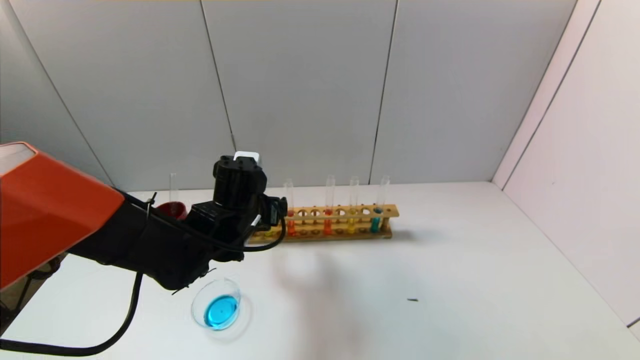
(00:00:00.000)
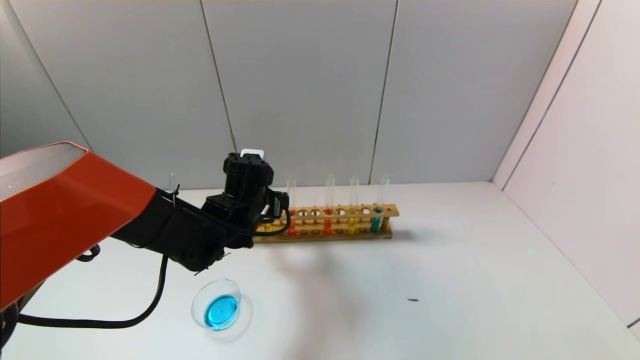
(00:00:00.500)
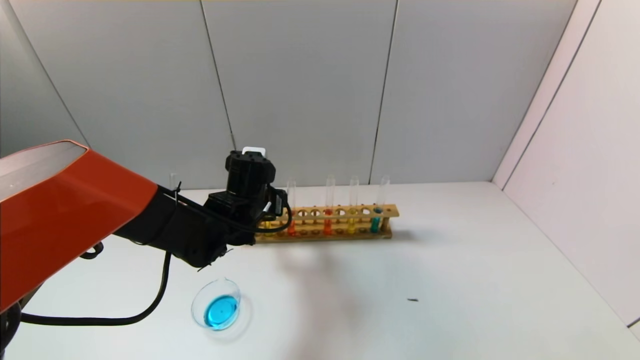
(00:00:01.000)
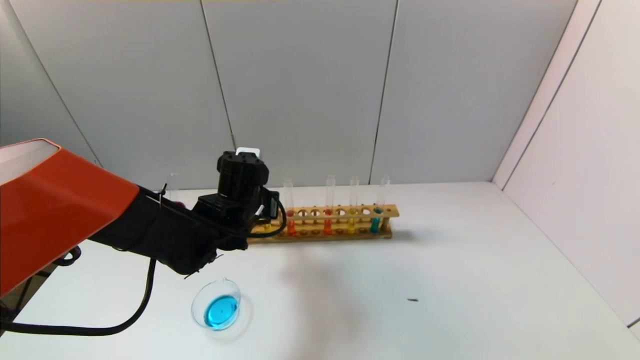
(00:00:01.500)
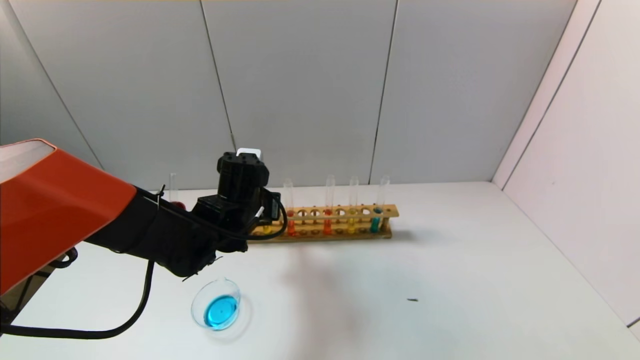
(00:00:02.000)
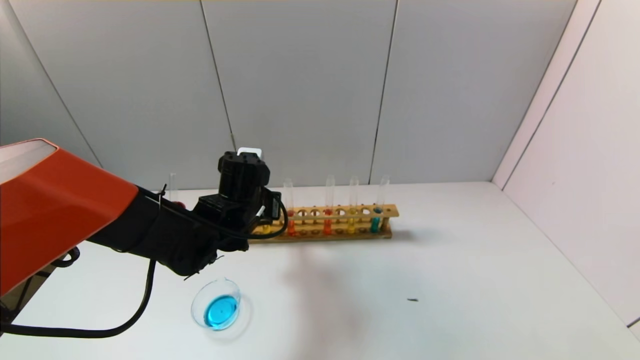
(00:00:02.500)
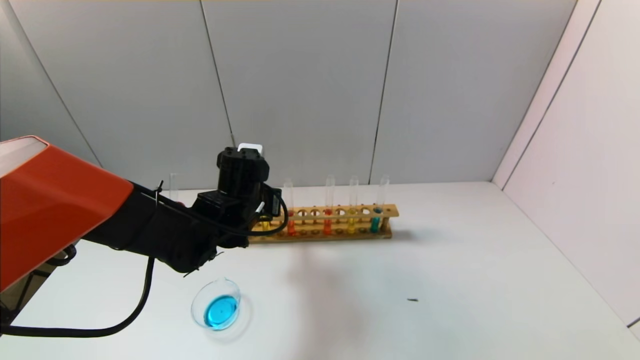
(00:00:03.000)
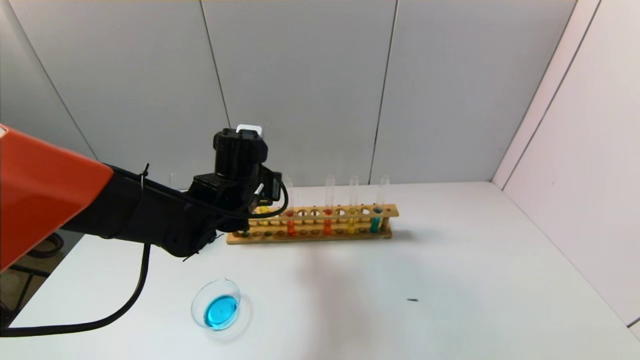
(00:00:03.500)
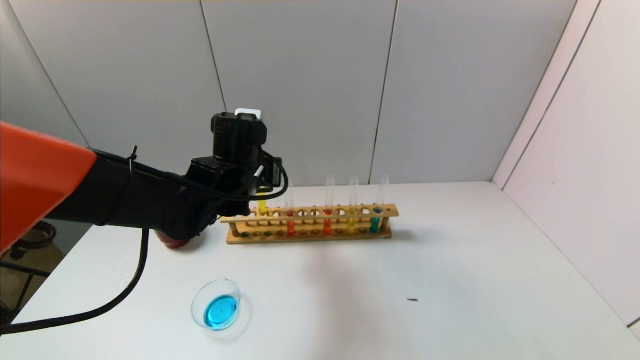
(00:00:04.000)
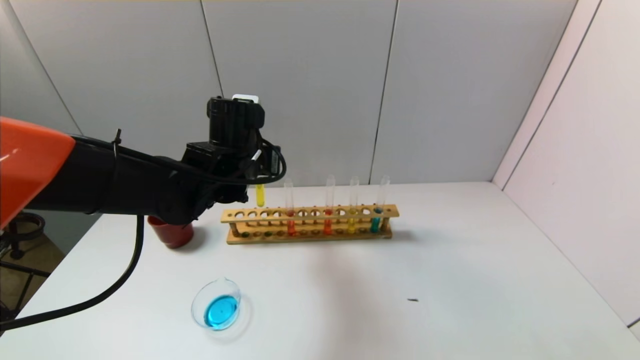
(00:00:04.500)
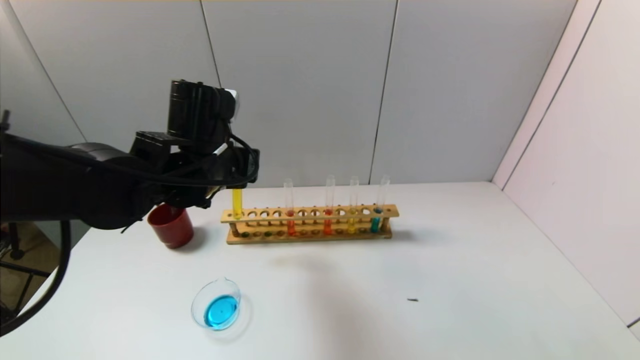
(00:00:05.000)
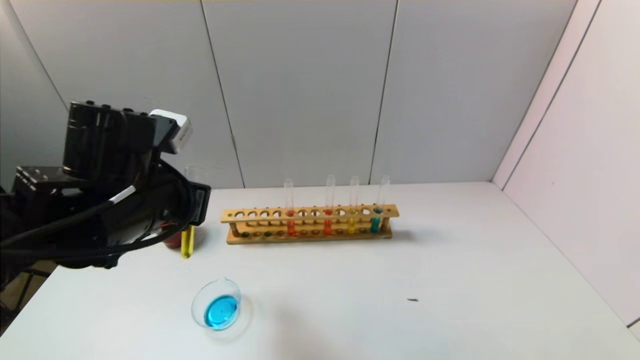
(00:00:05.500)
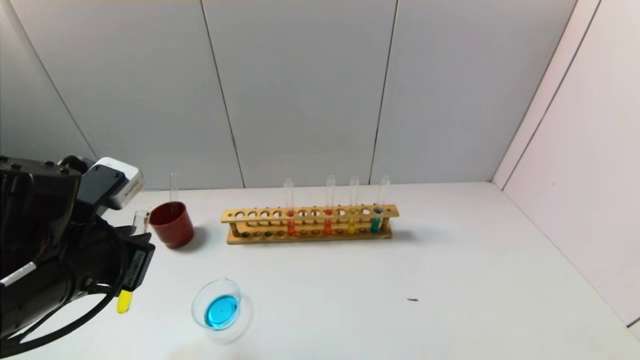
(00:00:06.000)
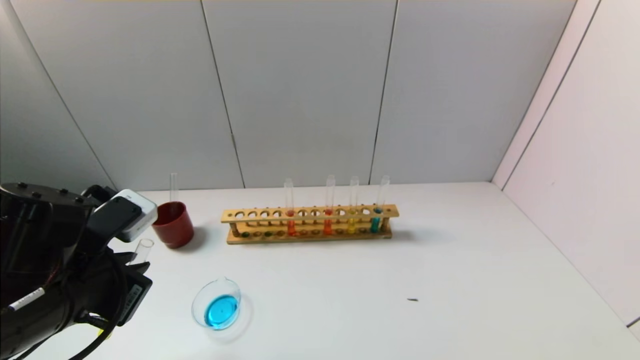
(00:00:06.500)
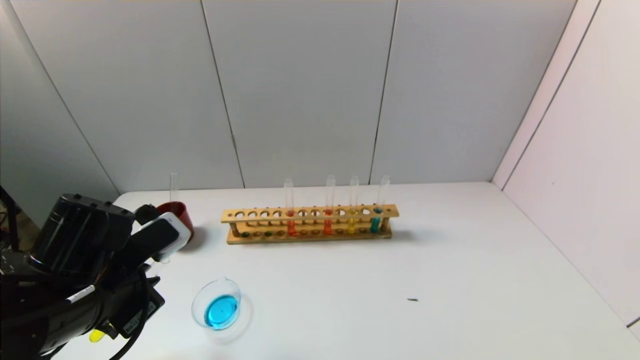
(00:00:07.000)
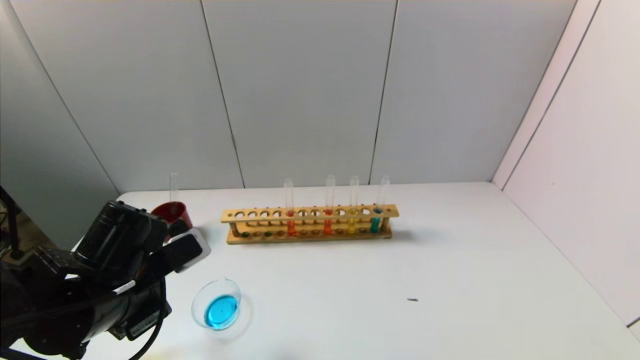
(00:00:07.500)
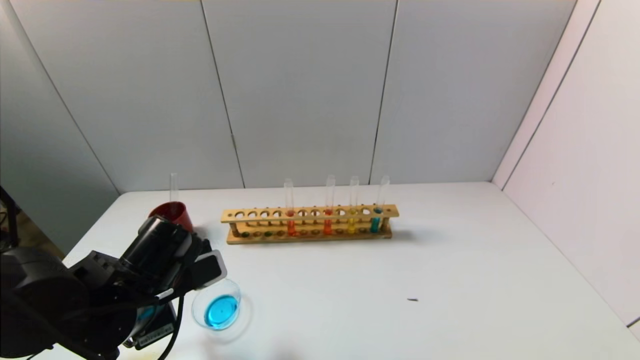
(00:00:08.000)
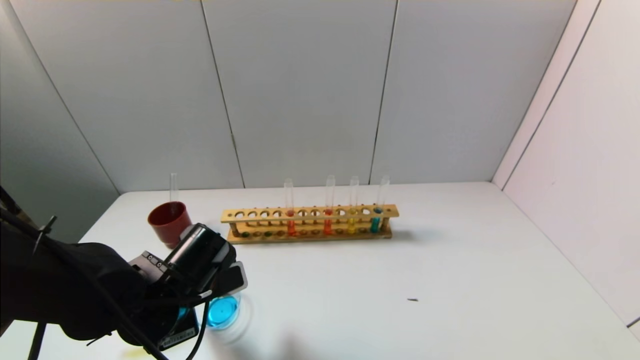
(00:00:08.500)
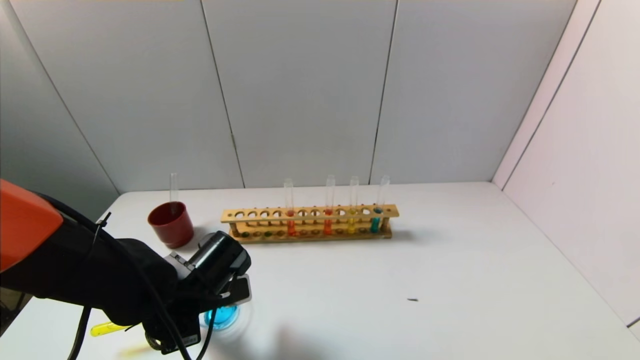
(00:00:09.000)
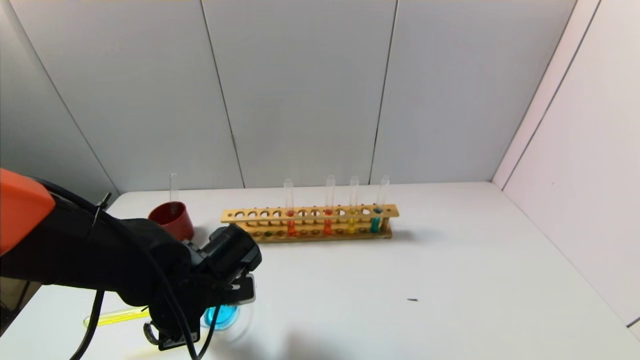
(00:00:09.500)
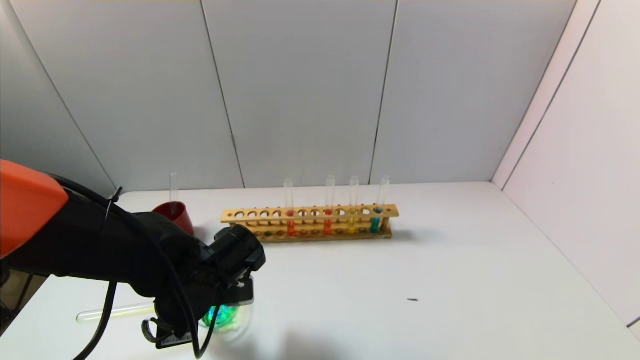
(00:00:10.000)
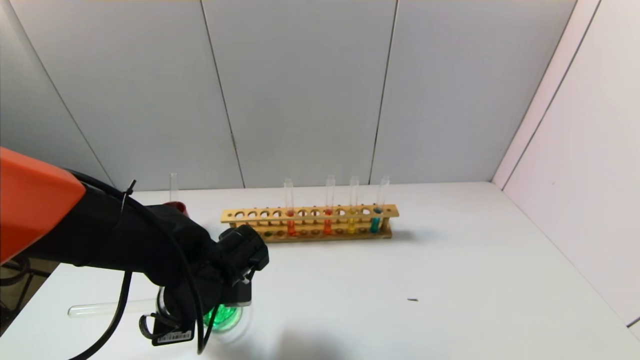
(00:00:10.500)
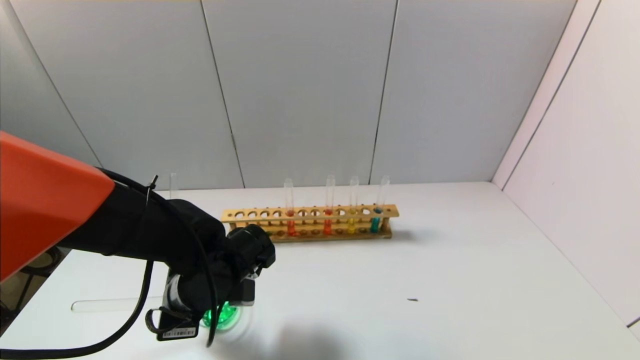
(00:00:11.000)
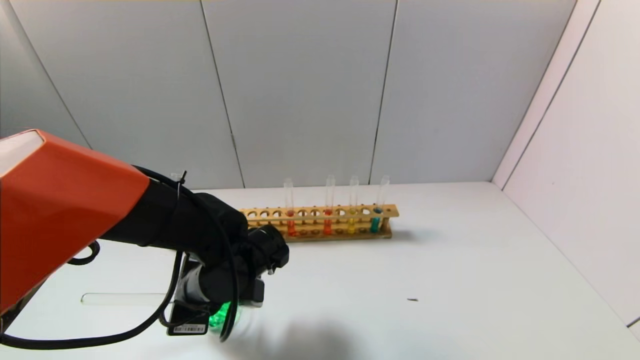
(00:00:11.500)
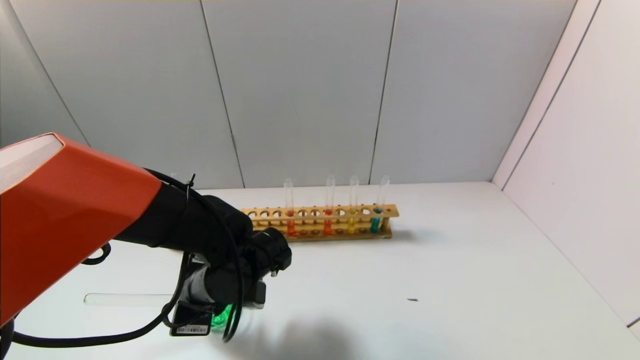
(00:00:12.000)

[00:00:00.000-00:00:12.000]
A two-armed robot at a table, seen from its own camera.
Task of the whole recording: pick up the test tube with yellow pigment and the test tube with blue pigment by grippers and pour them into the beaker.
00:00:00.000 to 00:00:02.000: The left gripper closes.
00:00:02.000 to 00:00:04.000: The left gripper moves upward, roughly 5 cm.
00:00:04.000 to 00:00:06.000: The left gripper heads backward and to the left, covering approximately 20 cm.
00:00:06.000 to 00:00:08.000: The left gripper heads downward, covering roughly 10 cm.
00:00:08.000 to 00:00:10.000: The left gripper changes place by about 5 cm.
00:00:10.000 to 00:00:12.000: The grippers stay close to where they were, moving slightly.

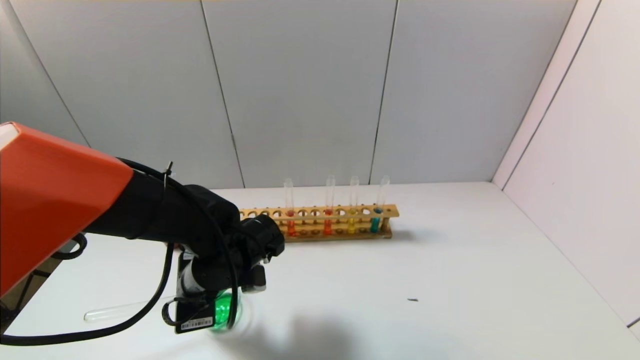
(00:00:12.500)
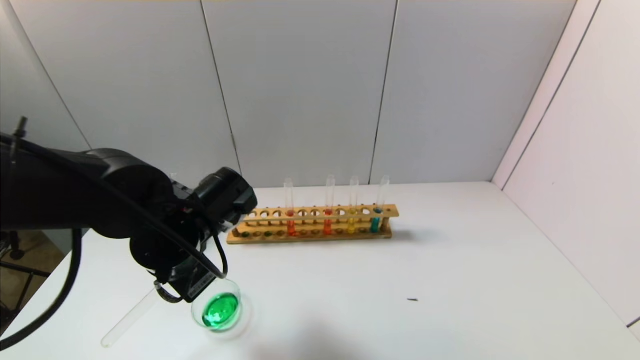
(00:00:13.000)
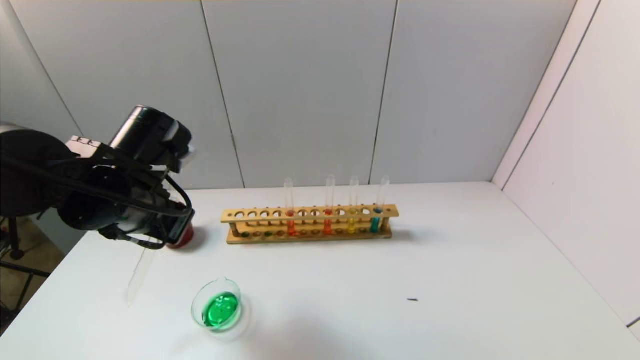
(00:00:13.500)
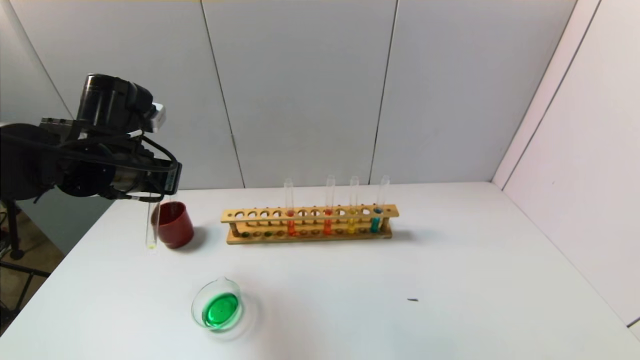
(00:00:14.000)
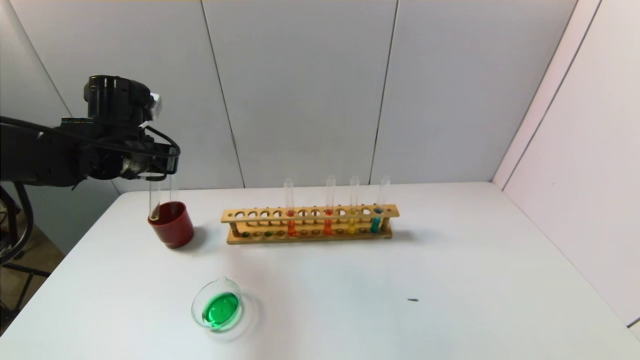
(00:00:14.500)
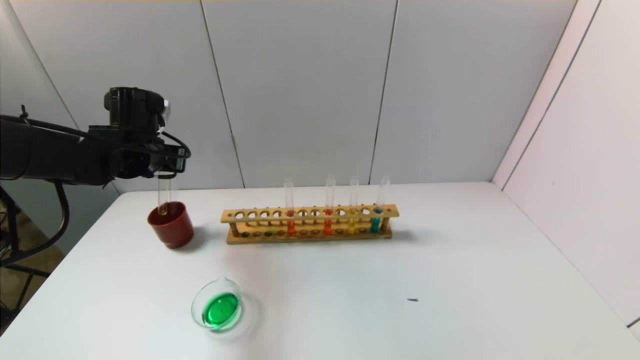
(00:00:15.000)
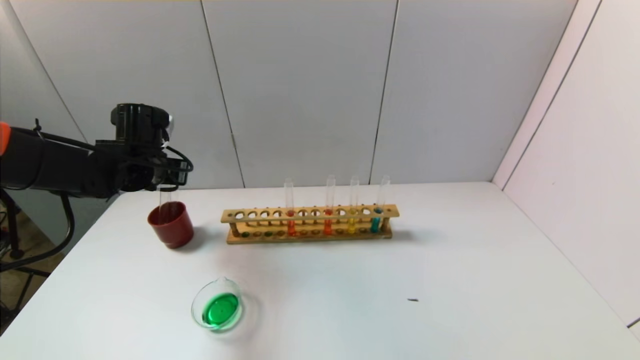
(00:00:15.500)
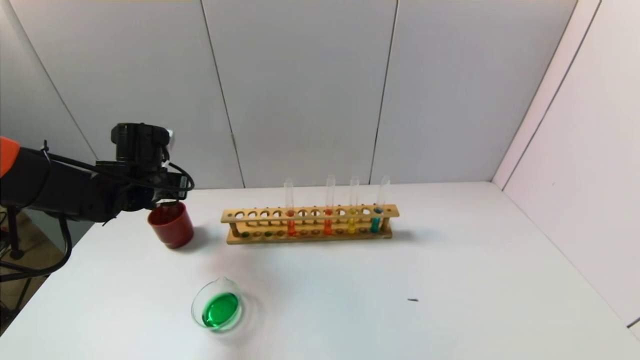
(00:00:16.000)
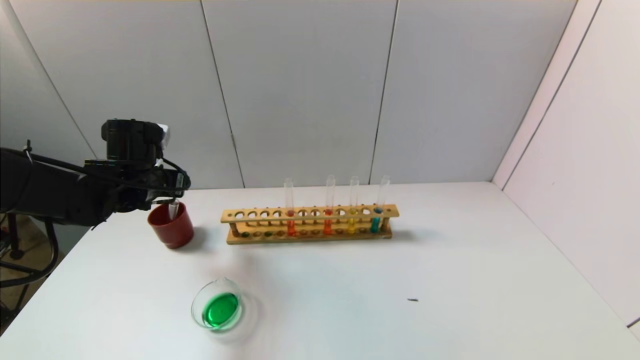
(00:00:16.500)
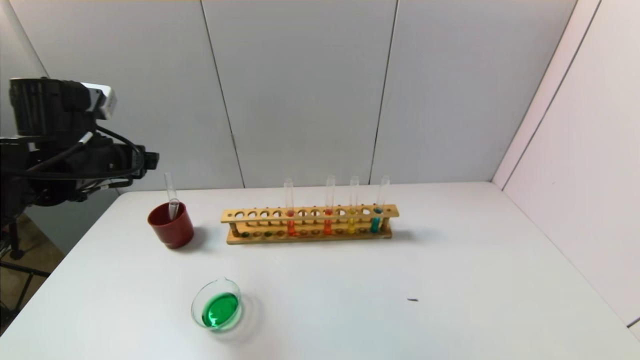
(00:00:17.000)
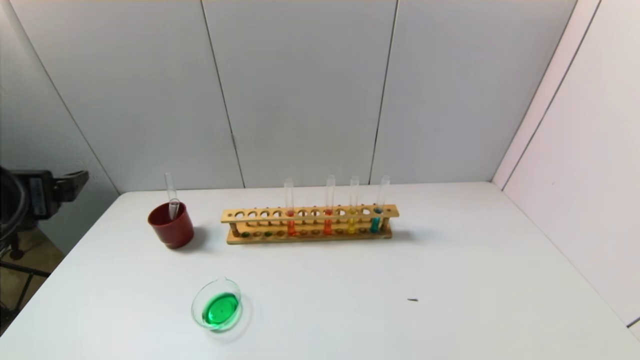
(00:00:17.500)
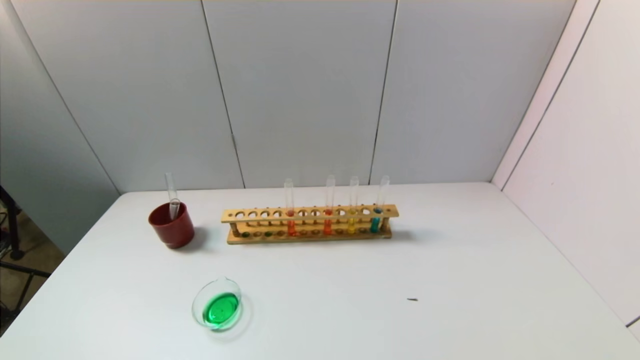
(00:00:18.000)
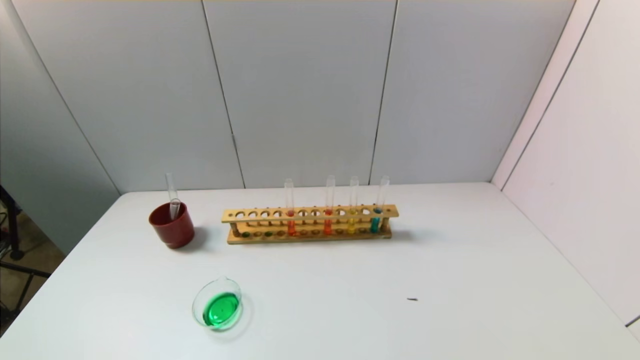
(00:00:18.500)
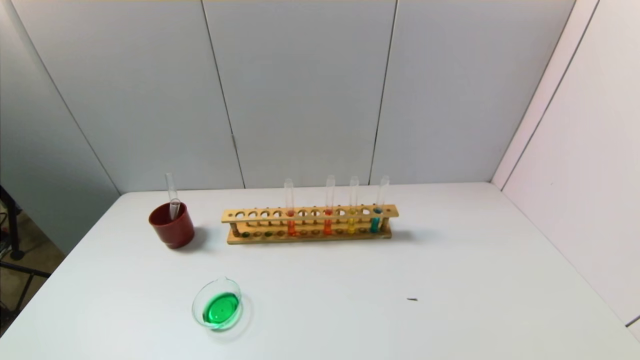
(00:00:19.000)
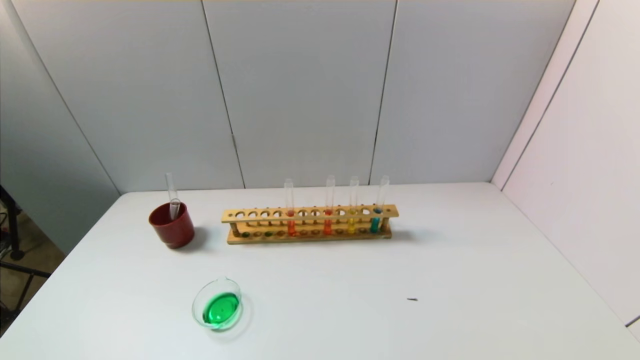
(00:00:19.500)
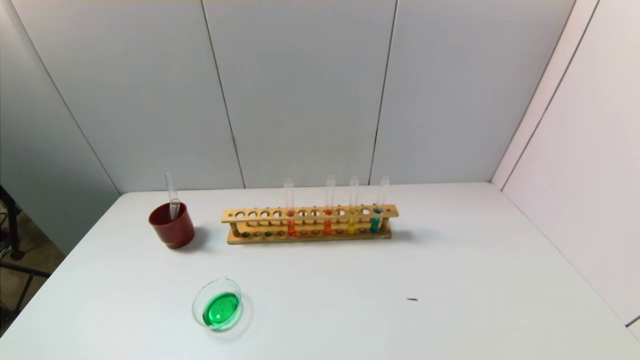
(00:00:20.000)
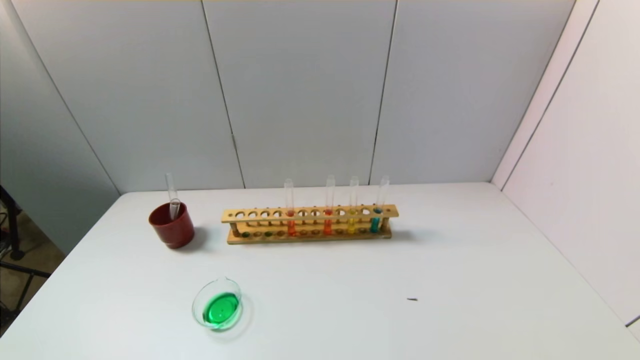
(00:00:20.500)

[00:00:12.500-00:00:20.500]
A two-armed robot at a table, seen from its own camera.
Task of the whole recording: pick up the test tube with yellow pigment and the test tube with blue pigment by grippers and pour them into the beaker.
Step, 00:00:12.500 to 00:00:16.000: Place the test tube into the brown cup with the left gripper.
00:00:12.500 to 00:00:14.500: The left gripper goes roughly 20 cm to the left, upward and forward.
00:00:14.500 to 00:00:16.500: The left gripper travels downward by approximately 5 cm, and opens its fingers.
00:00:16.500 to 00:00:18.500: The left gripper travels backward by roughly 40 cm.
